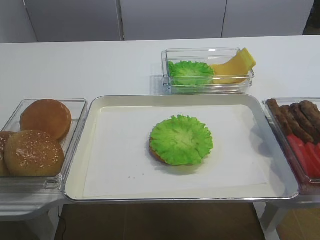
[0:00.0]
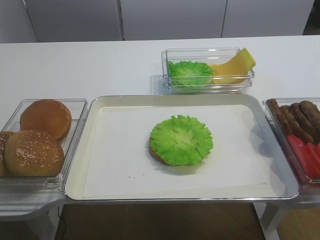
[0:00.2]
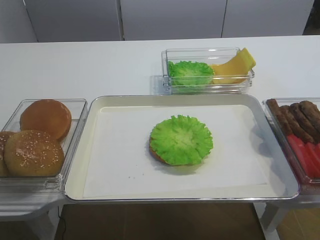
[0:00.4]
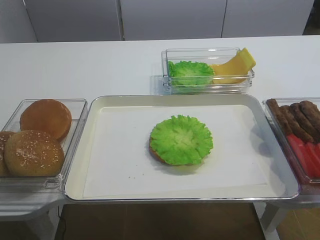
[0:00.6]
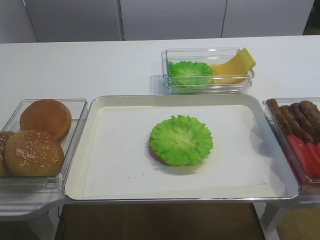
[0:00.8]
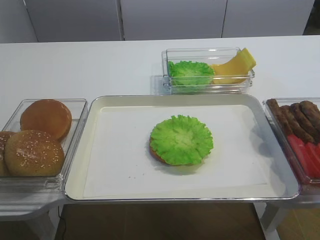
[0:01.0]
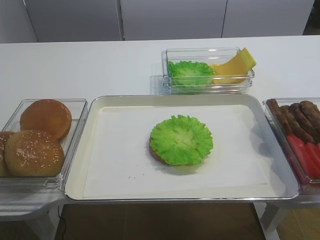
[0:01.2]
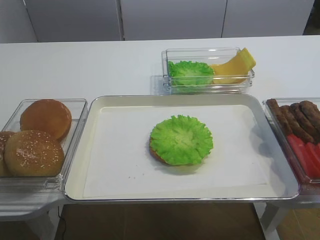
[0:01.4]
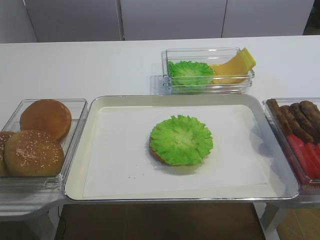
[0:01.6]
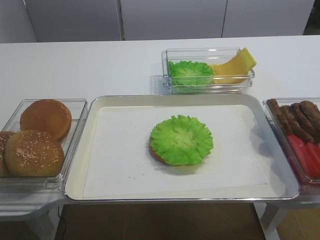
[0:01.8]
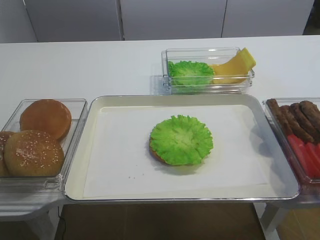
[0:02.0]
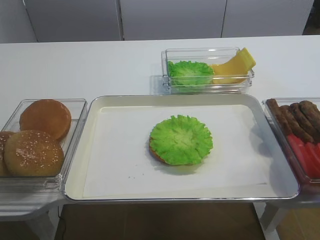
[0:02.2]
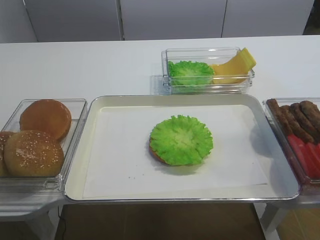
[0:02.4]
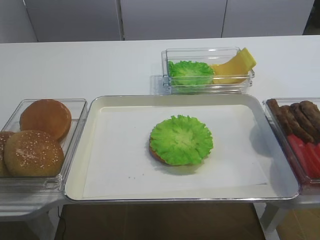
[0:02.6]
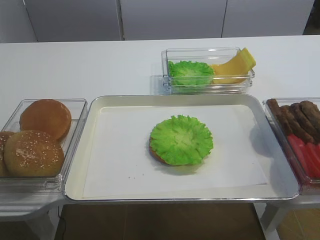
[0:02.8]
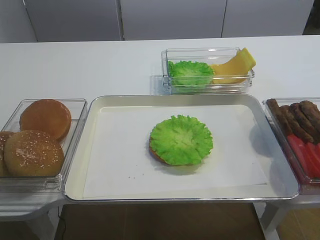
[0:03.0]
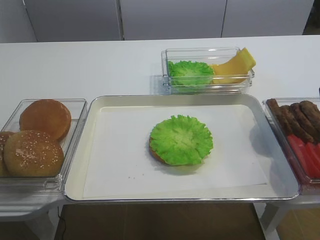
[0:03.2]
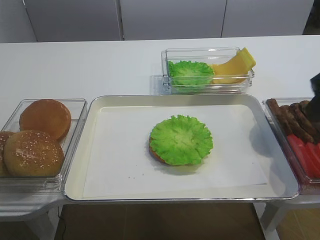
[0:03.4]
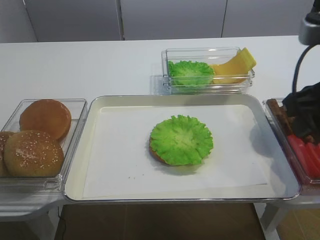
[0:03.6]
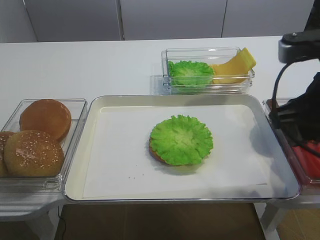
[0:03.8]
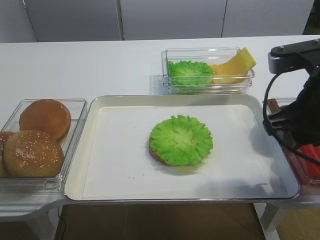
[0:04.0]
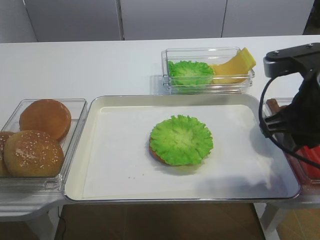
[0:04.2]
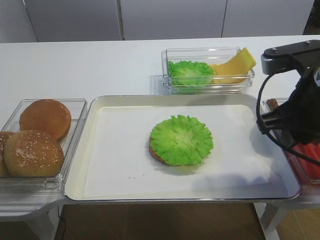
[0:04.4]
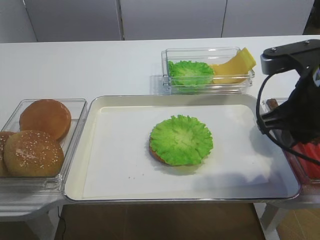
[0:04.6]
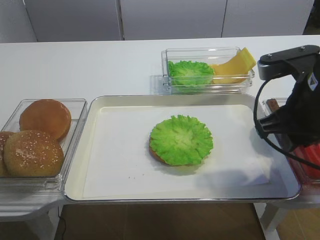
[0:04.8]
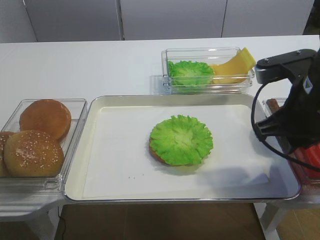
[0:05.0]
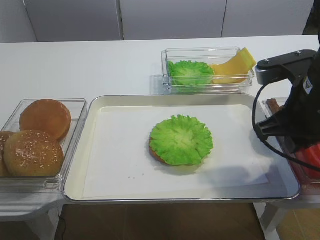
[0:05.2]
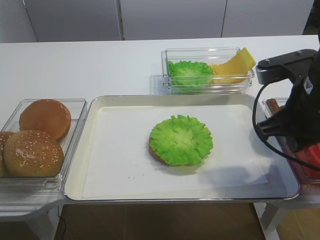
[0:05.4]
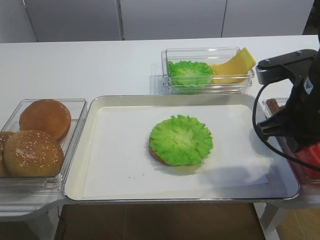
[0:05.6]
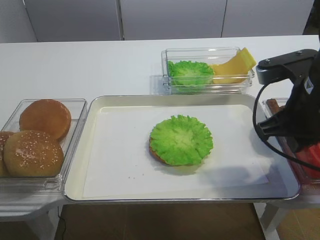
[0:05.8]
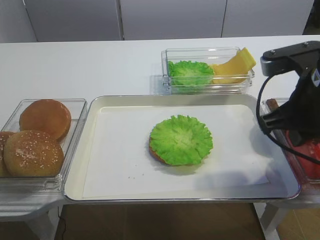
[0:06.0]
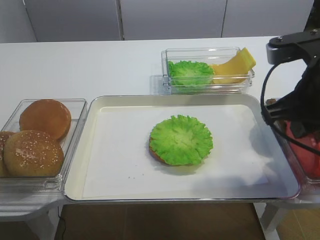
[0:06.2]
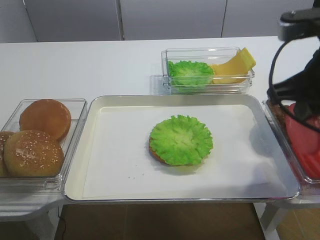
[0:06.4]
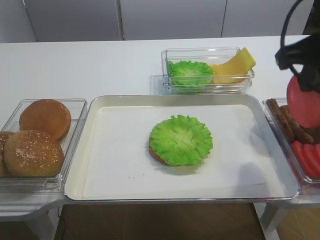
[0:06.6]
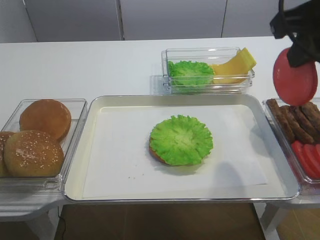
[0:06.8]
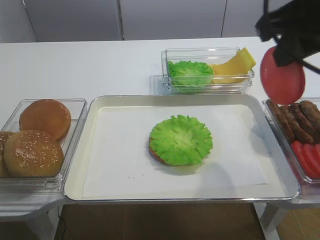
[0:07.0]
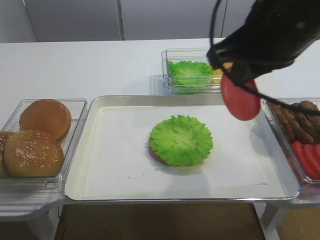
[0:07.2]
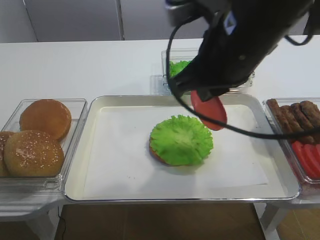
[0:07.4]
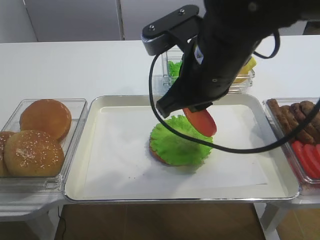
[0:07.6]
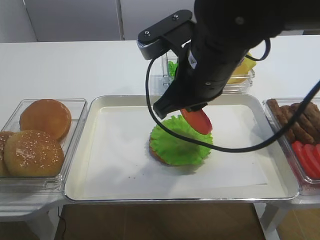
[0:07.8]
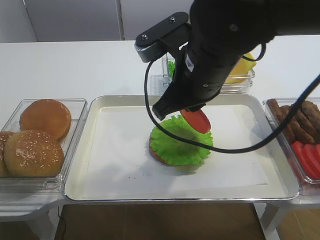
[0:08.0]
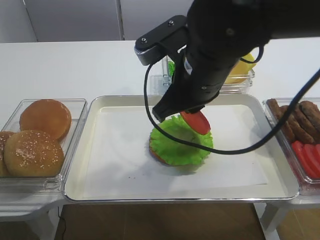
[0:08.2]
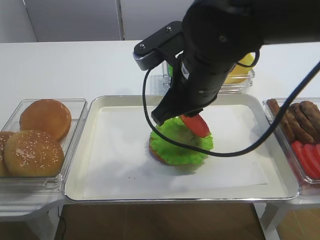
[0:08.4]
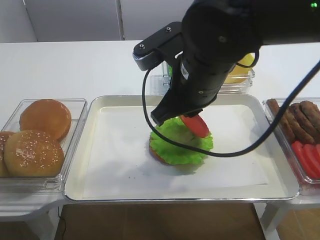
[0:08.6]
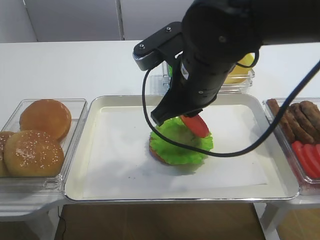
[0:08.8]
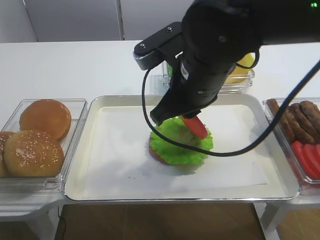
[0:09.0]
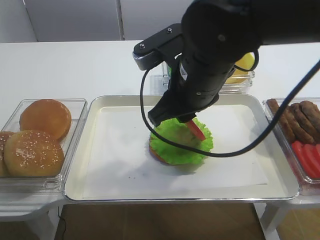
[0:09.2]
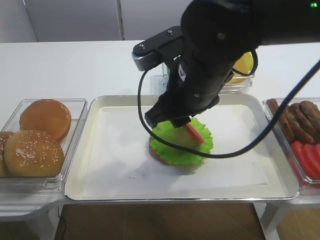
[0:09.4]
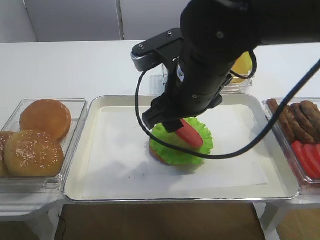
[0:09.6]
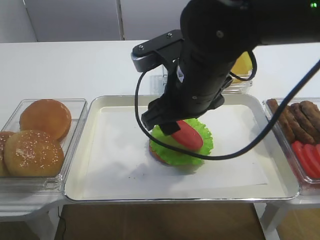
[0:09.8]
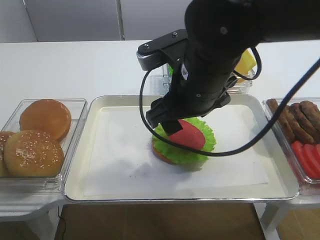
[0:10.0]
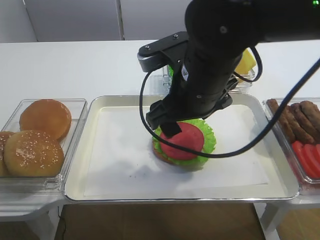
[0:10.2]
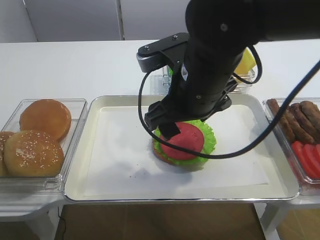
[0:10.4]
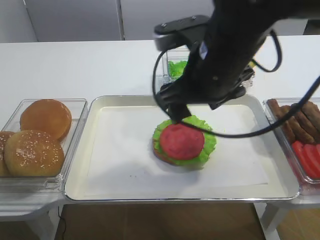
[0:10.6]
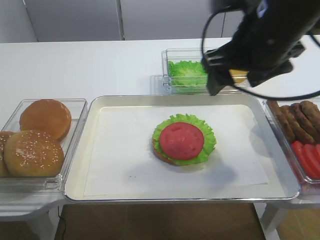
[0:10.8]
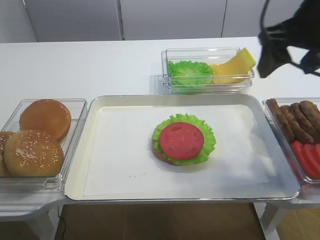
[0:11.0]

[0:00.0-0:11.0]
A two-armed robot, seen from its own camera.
Step, 0:00.0 to 0:06.4: Pick up the tomato slice with the right gripper.
Step, 0:06.6 to 0:10.4: Place the tomato slice on the lettuce leaf with the right gripper.
0:01.6 to 0:03.2: The right gripper moves forward and upward, roughly 20 cm.
0:03.2 to 0:04.8: The right gripper is displaced downward and forward by some 10 cm.
0:04.8 to 0:06.2: The grippers stay close to where they were, moving slightly.
0:06.2 to 0:07.8: The right gripper travels to the left by approximately 15 cm.
0:07.8 to 0:09.4: The right gripper opens up.
0:09.4 to 0:11.0: The right gripper travels to the right and upward by roughly 15 cm, and opens.

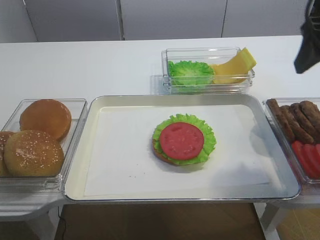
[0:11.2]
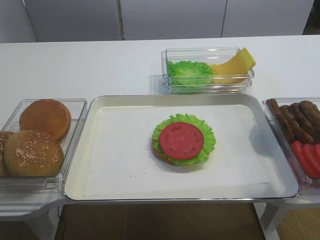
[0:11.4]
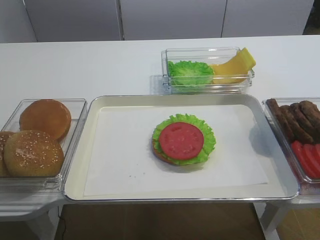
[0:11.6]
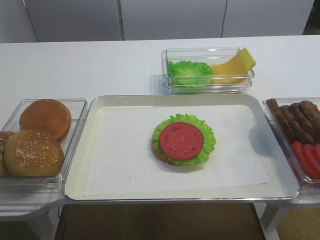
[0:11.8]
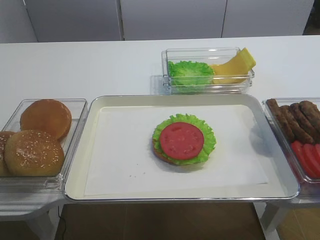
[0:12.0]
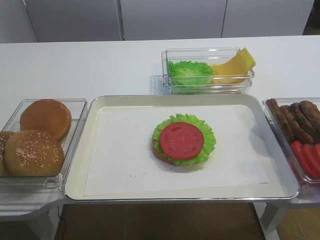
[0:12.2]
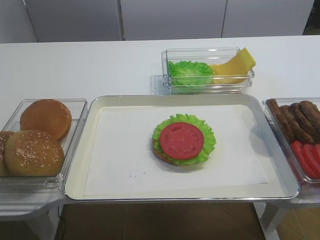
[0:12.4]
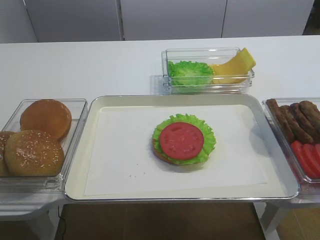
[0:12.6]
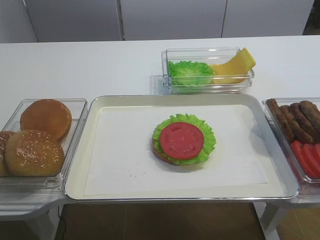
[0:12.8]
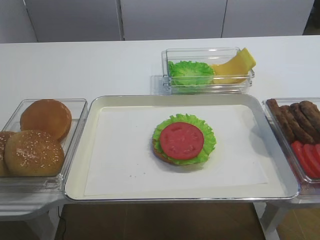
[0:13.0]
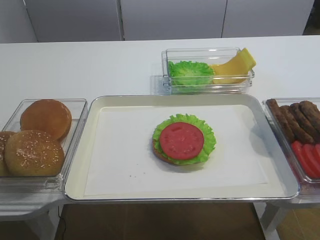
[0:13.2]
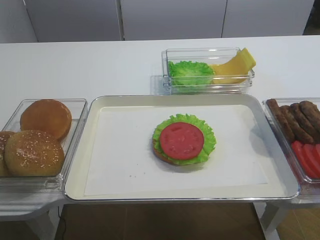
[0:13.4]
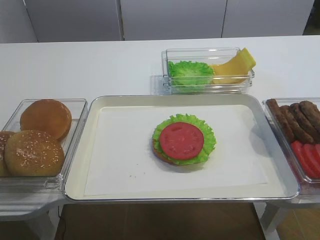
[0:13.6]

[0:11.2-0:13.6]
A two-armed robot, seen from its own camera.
0:11.2 to 0:12.4: The right gripper heads backward, covering some 25 cm.

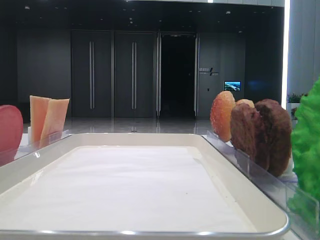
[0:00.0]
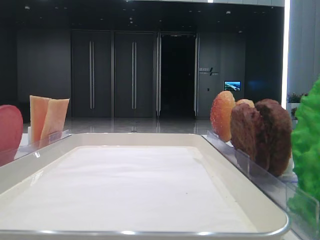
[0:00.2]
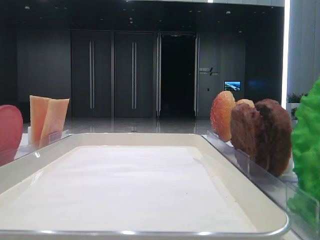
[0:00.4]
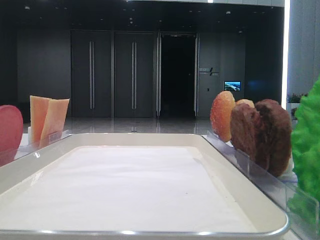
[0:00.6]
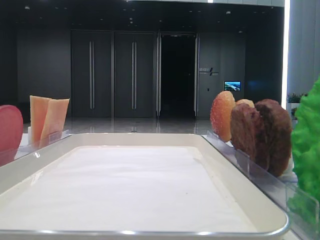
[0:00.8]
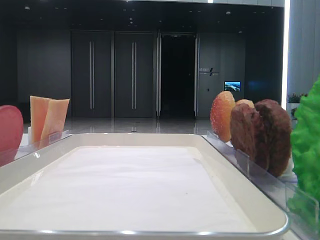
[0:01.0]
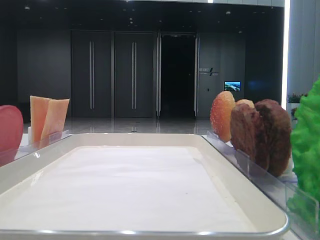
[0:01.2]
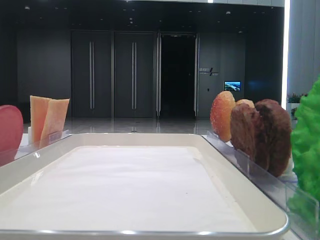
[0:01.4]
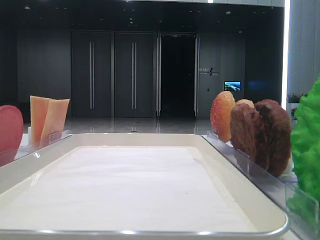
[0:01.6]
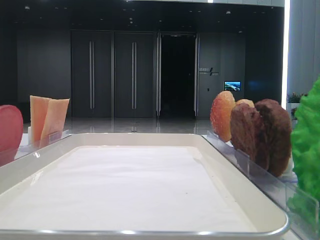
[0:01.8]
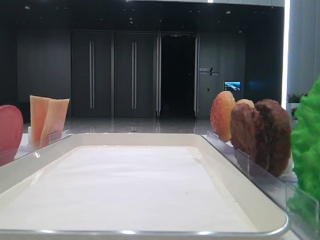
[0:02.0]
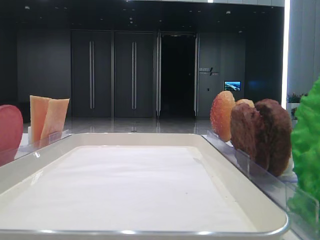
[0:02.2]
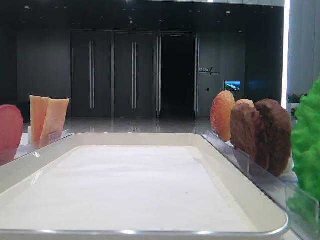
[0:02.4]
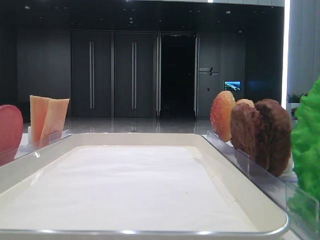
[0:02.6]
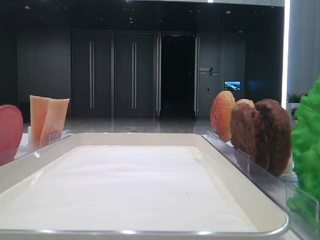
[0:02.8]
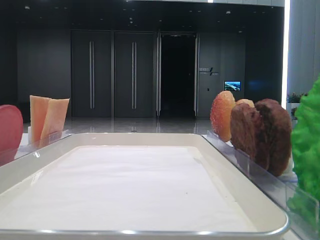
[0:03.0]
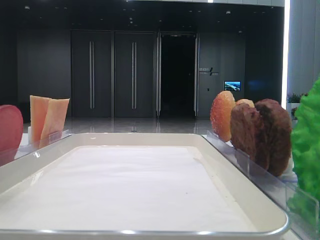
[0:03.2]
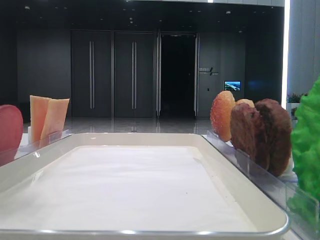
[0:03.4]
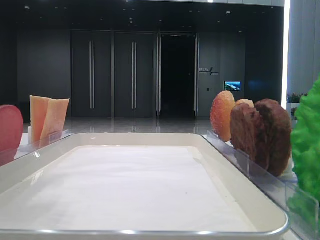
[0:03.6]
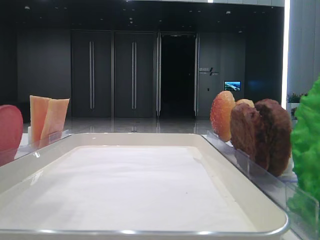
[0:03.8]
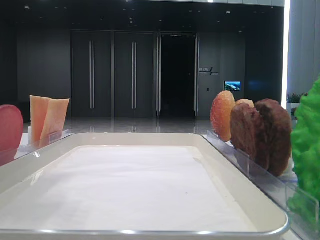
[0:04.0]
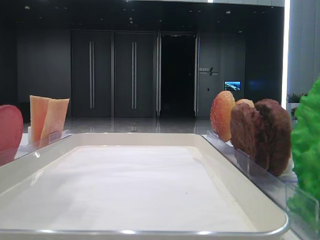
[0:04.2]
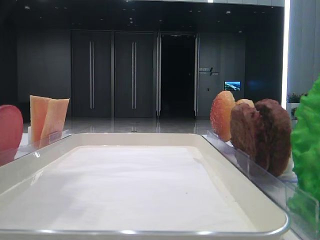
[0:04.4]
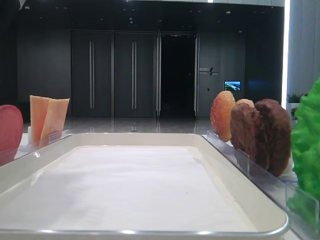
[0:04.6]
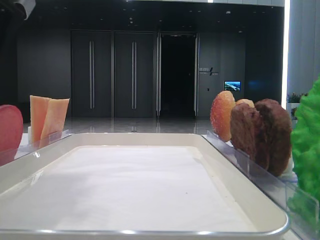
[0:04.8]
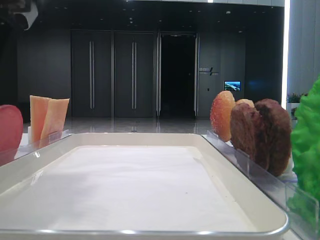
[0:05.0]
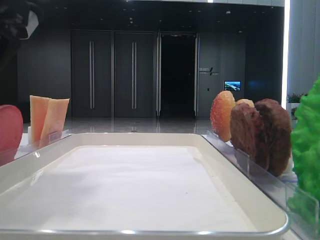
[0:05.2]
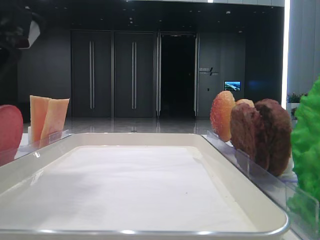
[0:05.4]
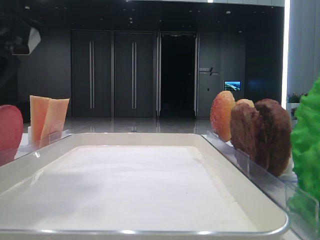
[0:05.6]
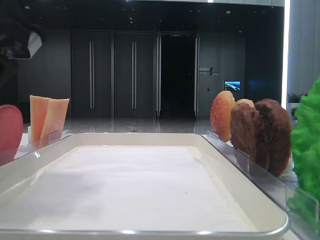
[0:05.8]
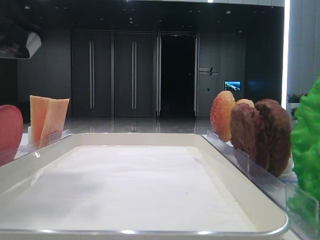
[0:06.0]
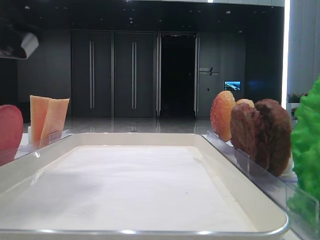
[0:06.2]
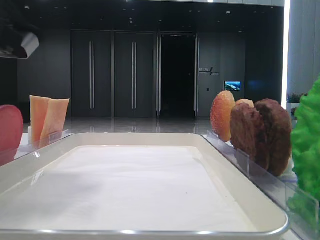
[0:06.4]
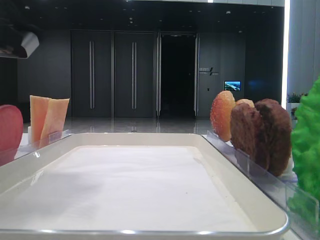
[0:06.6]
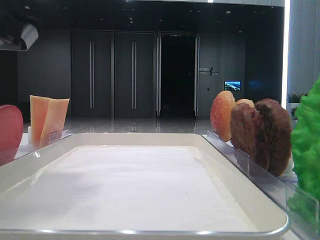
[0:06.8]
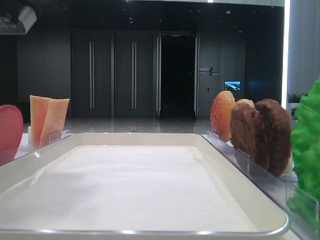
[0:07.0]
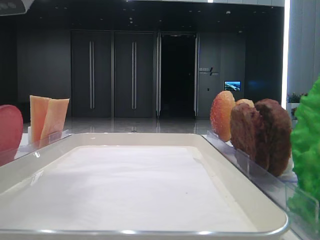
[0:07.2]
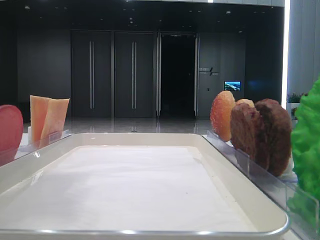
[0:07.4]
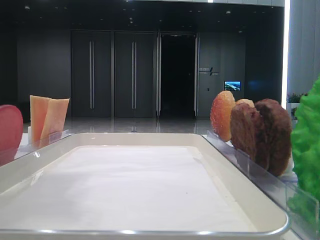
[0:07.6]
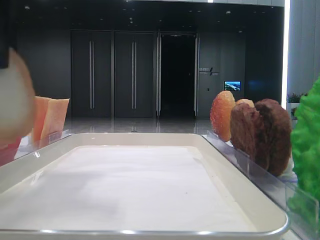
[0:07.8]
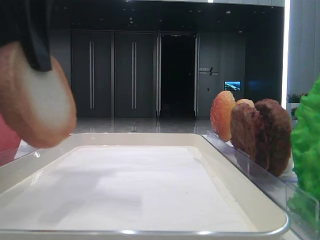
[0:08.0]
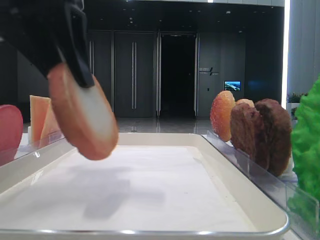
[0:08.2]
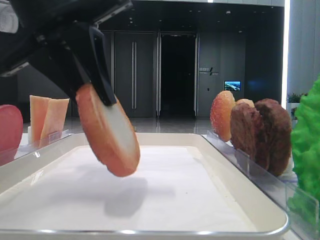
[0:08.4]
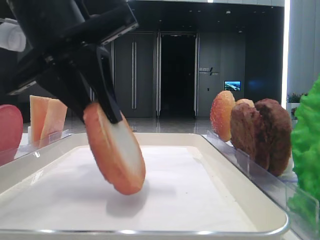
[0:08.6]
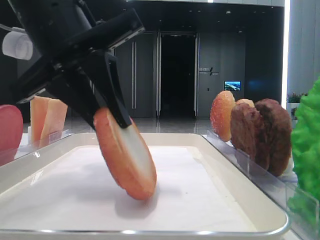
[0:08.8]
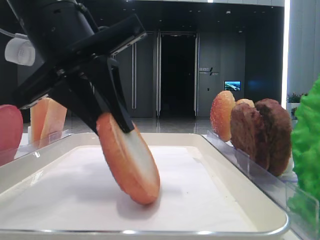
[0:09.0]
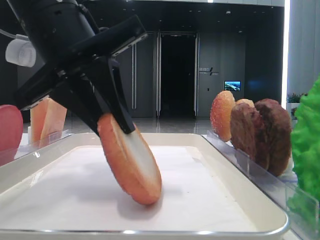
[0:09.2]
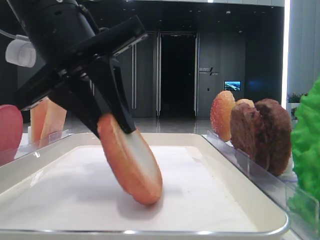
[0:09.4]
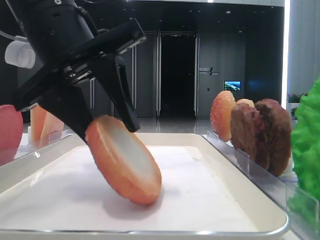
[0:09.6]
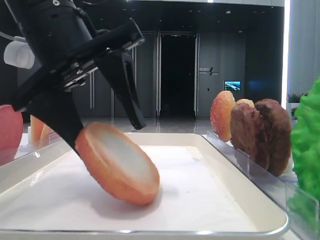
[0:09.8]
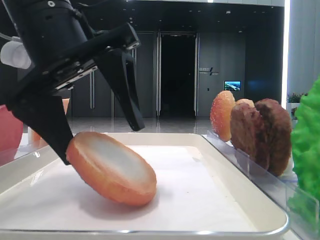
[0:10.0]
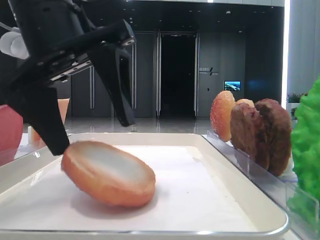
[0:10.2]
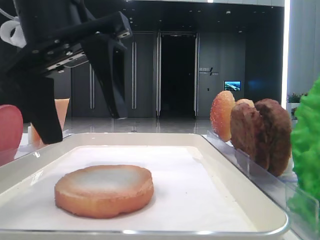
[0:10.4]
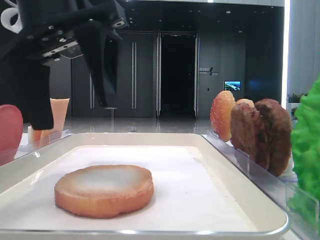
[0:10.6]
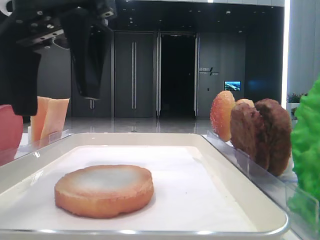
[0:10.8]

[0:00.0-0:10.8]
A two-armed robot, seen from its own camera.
Step, 0:06.6 to 0:10.2: Place the bread on the tray with the left hand.
0:03.0 to 0:04.6: The left gripper heads to the right and downward, covering some 15 cm.
0:06.2 to 0:07.8: The left gripper is displaced upward by some 5 cm.
0:07.8 to 0:09.2: The left gripper heads downward and to the right, covering some 10 cm.
0:09.2 to 0:10.8: The left gripper opens.
